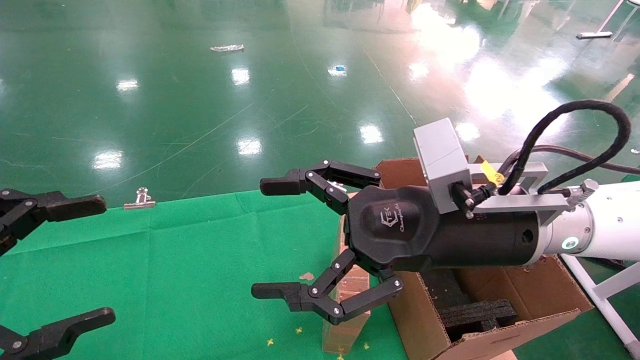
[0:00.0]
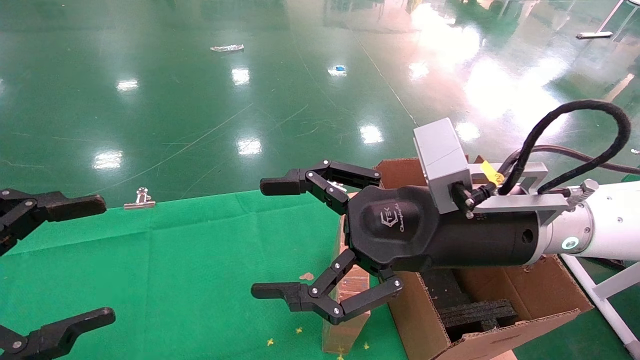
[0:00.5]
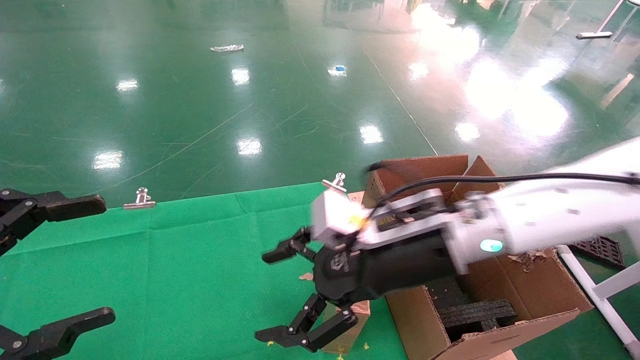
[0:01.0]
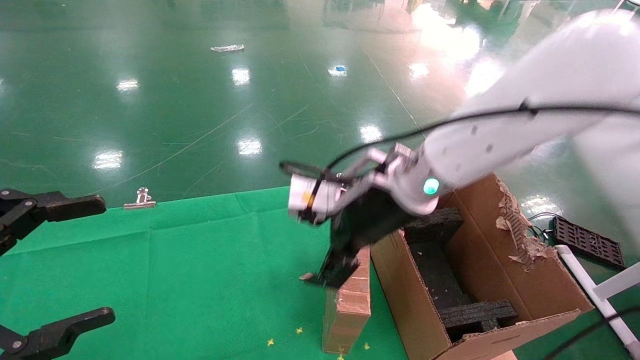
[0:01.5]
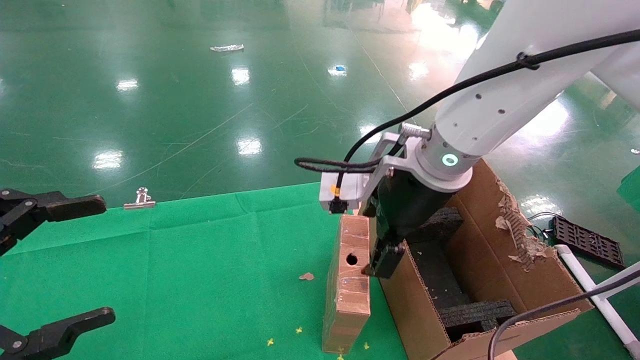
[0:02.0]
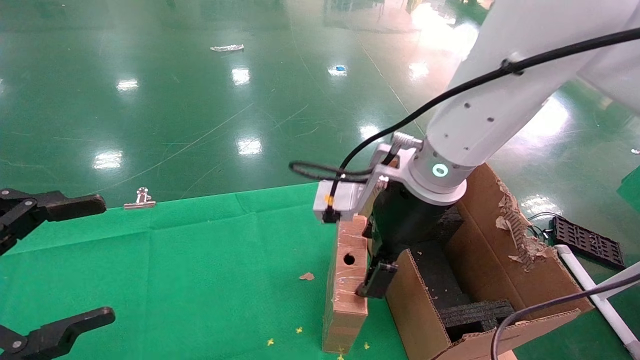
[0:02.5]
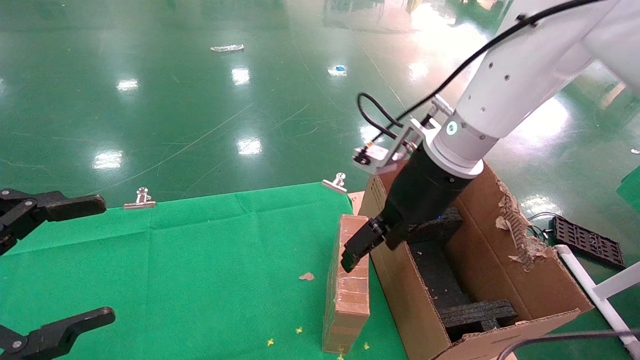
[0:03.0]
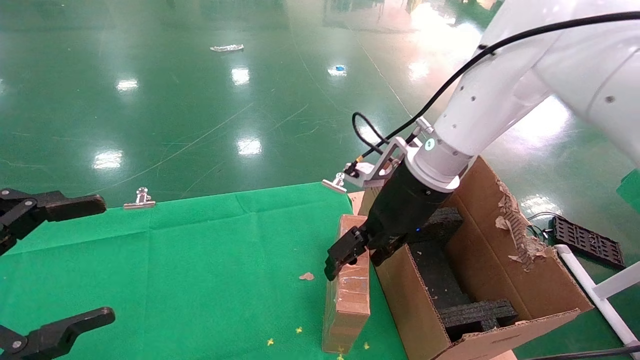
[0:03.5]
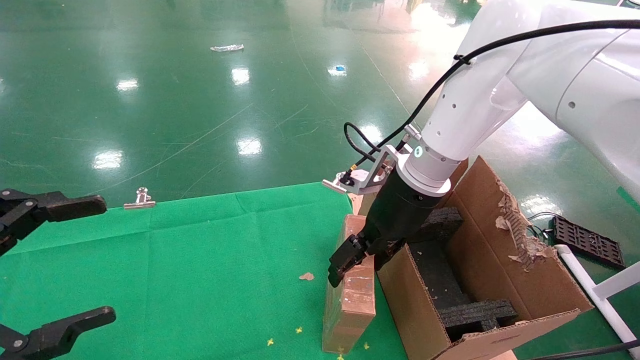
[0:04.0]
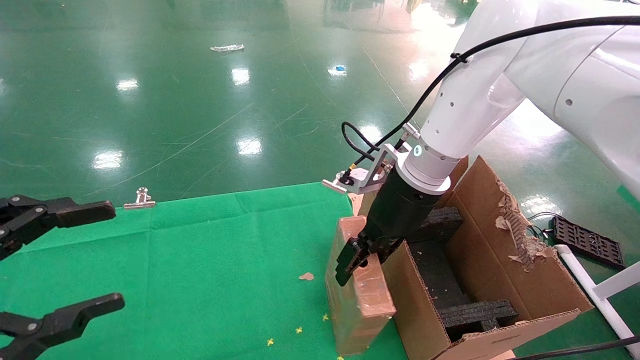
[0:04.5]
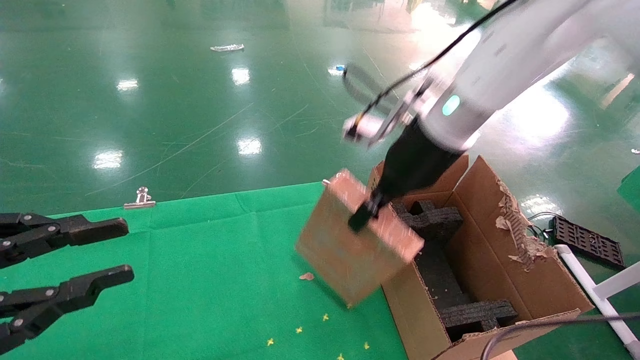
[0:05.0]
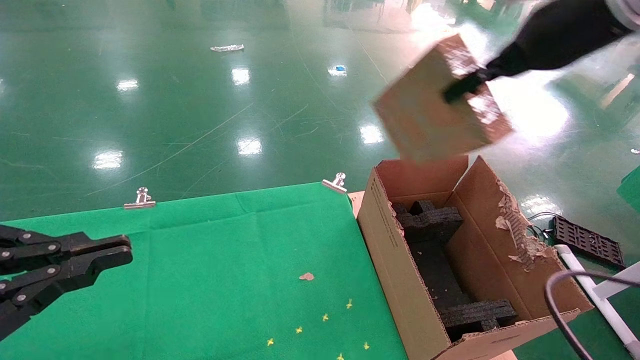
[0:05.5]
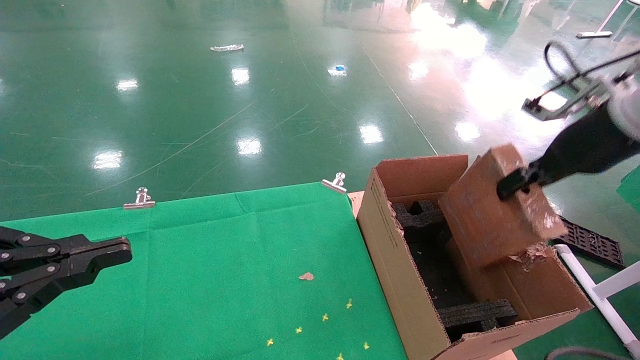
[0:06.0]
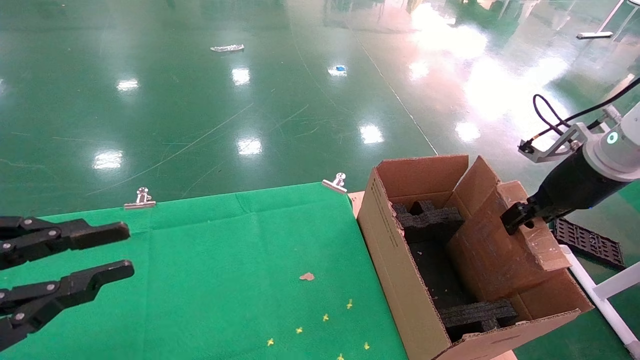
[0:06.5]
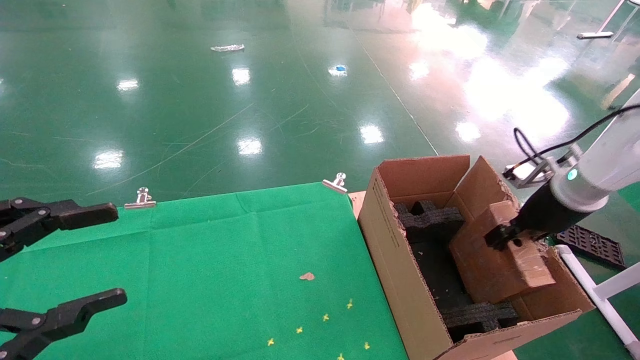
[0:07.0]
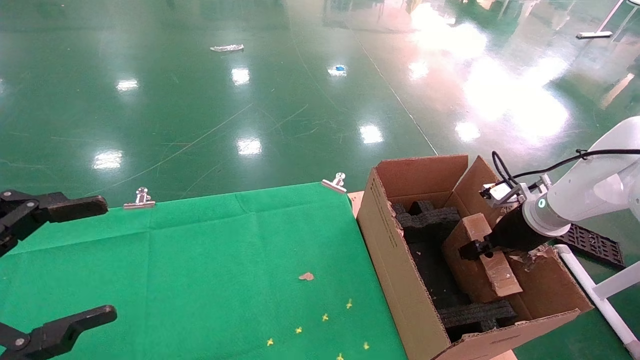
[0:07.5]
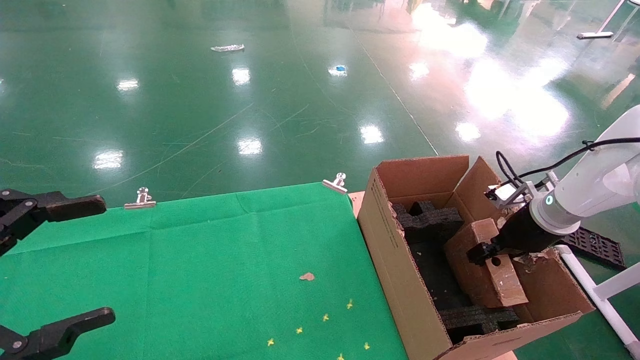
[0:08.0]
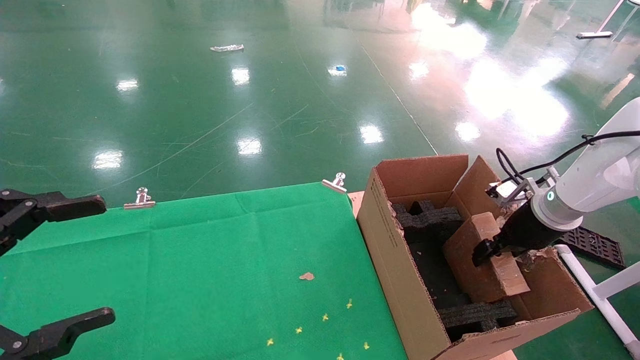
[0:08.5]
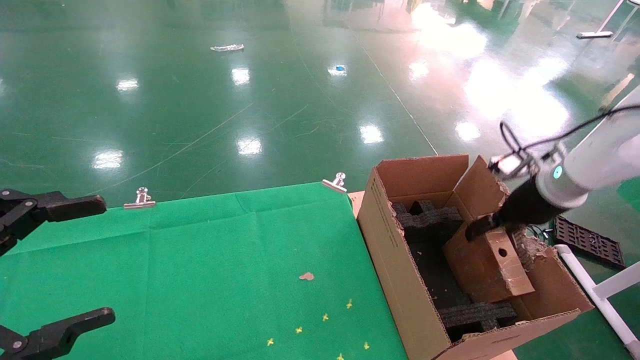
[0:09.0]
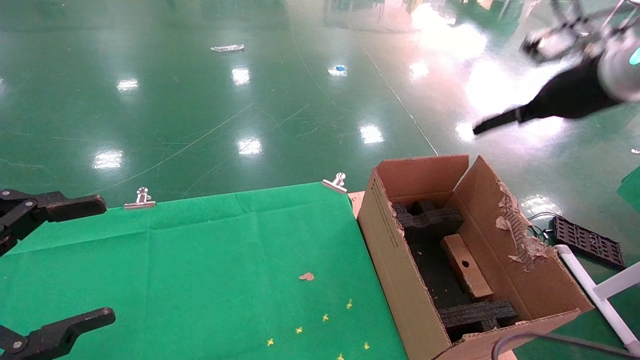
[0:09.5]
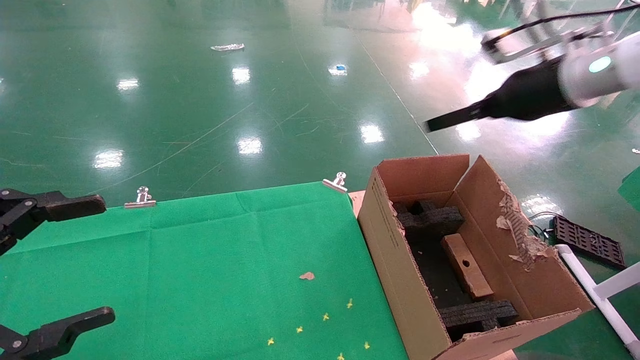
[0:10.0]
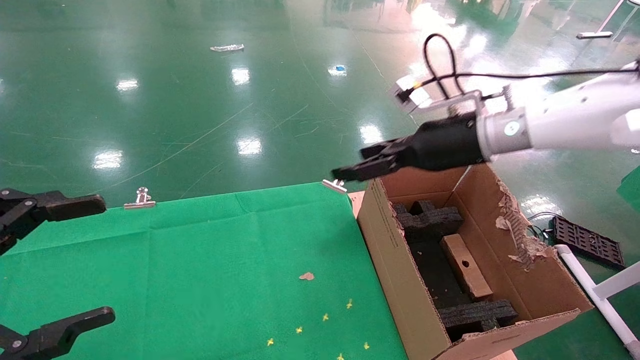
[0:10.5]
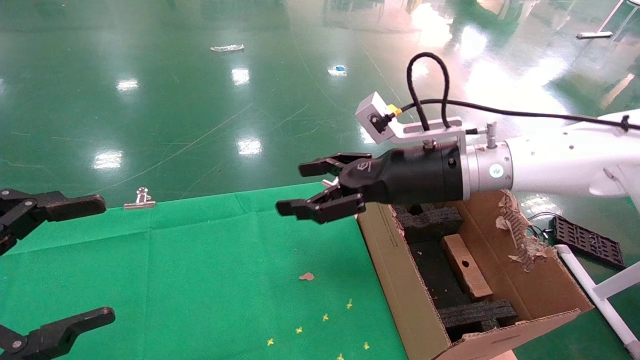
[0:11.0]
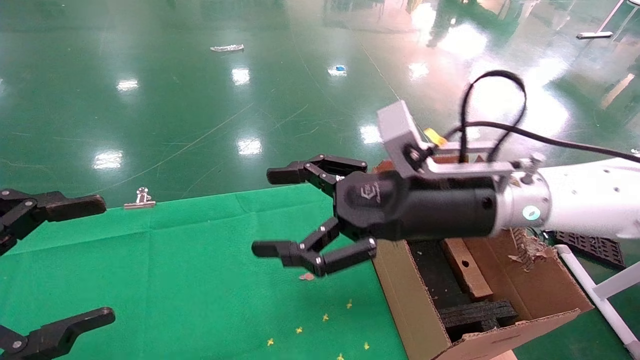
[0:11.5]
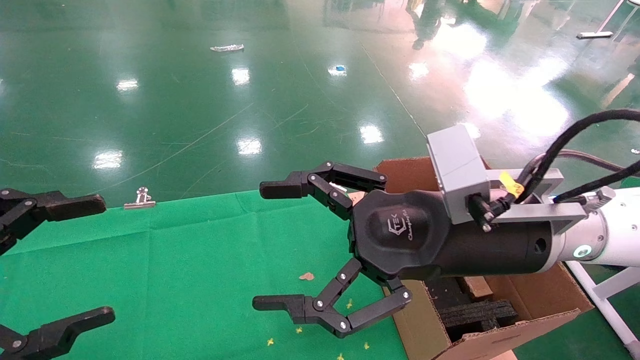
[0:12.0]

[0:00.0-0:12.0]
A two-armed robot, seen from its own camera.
Task of the whole recording: using a robotic arm to pick up a cardboard box and palace it the carton.
Step, 0:01.0 to 0:04.5: Pick up the mouse and the power cord paper box.
Step, 0:05.0 to 0:09.5: Place the mouse and the power cord paper box into the container.
0:00.0 to 0:02.0: The right gripper heads forward, covering some 10 cm.
0:02.0 to 0:04.0: The right gripper shifts roughly 5 cm forward.
0:04.0 to 0:06.0: The right gripper heads to the right, covering approximately 25 cm, and closes, while the left gripper closes.
0:06.0 to 0:08.0: The right gripper travels downward by about 20 cm; the left gripper opens.
0:08.0 to 0:10.0: The right gripper goes approximately 20 cm upward, and opens.
0:10.0 to 0:12.0: The right gripper shifts roughly 25 cm to the left, backward and downward.

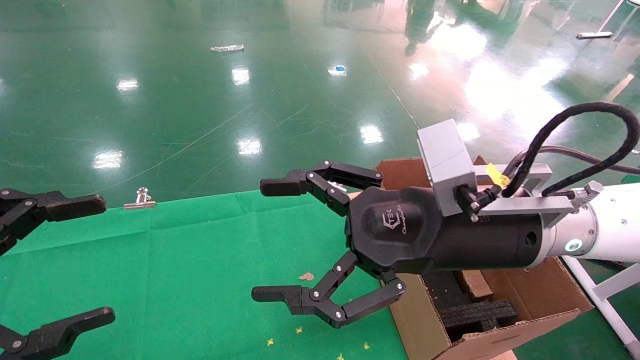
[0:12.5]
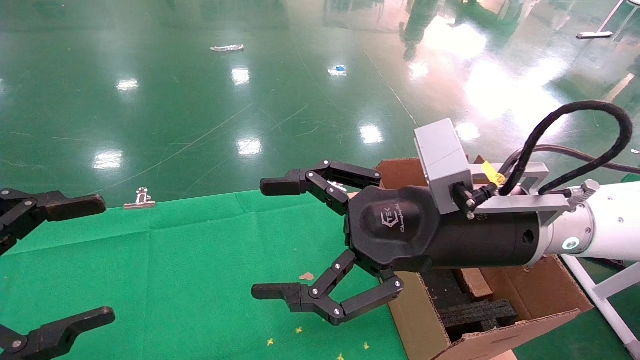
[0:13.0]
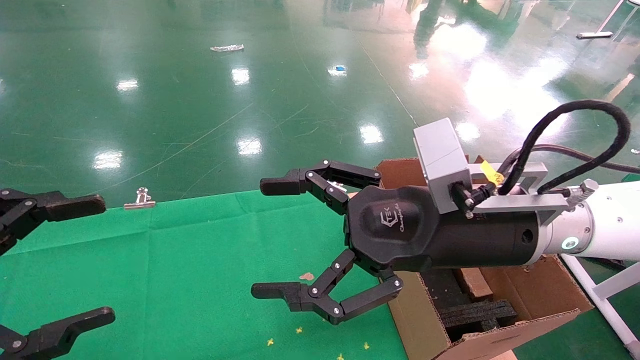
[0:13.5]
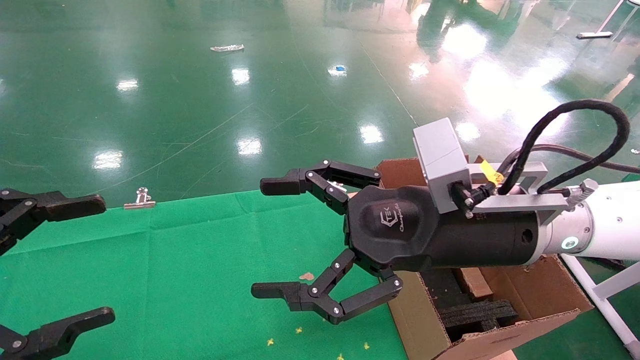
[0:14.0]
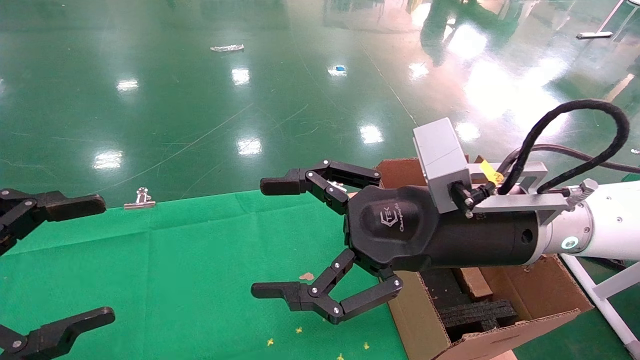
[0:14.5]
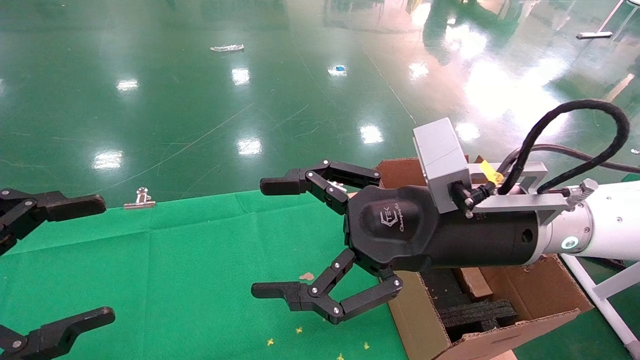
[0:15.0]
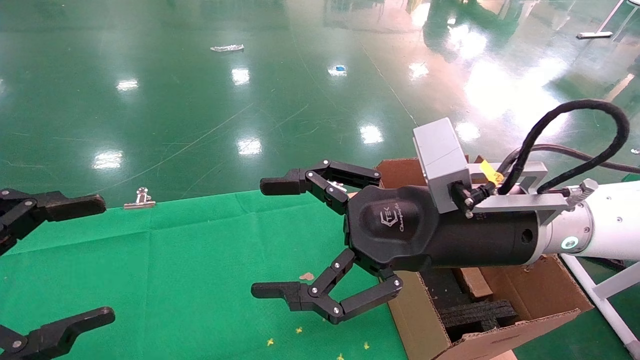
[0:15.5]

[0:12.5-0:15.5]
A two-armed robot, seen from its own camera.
Task of the whole recording: using a robotic arm to pick up a cardboard box and palace it the carton.
0:12.5 to 0:15.5: Both grippers stay about where they are.
